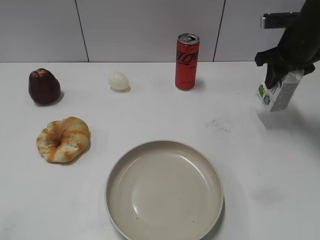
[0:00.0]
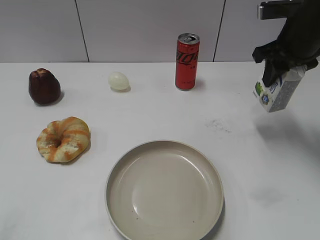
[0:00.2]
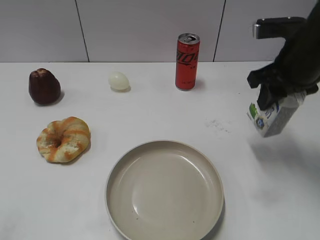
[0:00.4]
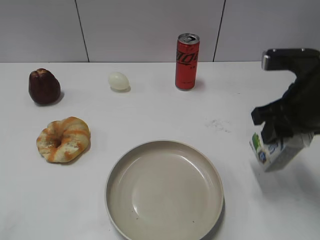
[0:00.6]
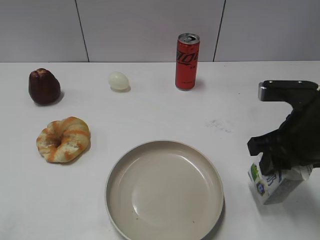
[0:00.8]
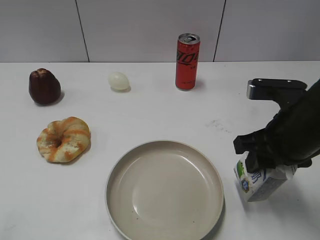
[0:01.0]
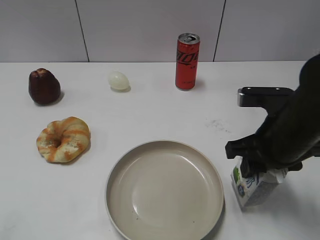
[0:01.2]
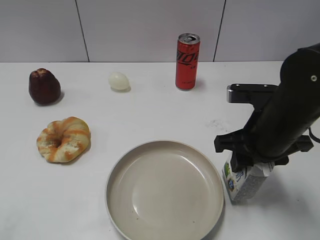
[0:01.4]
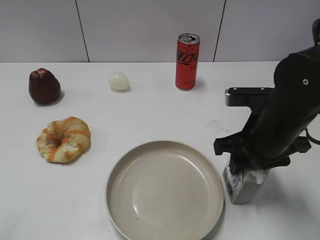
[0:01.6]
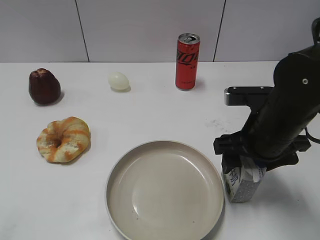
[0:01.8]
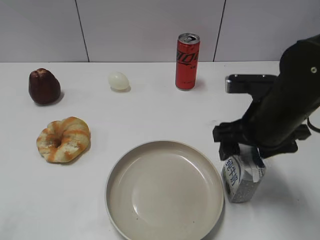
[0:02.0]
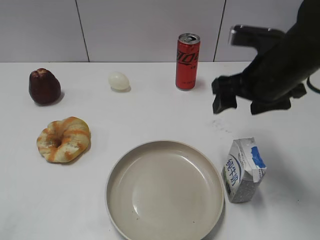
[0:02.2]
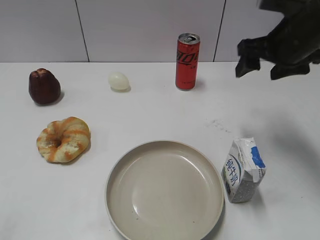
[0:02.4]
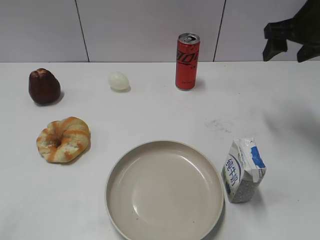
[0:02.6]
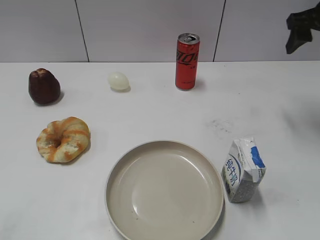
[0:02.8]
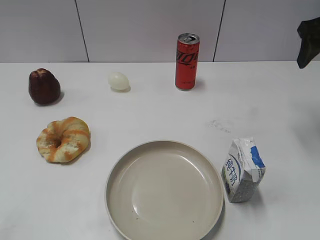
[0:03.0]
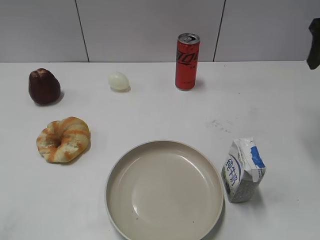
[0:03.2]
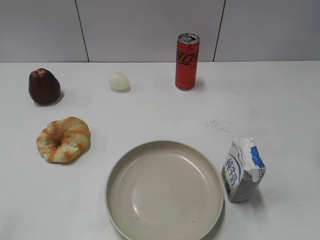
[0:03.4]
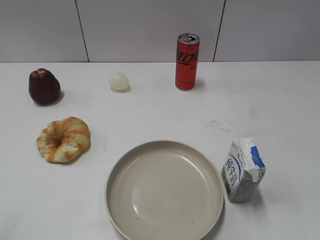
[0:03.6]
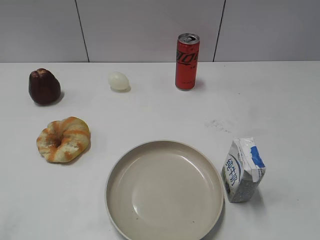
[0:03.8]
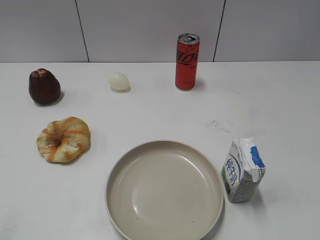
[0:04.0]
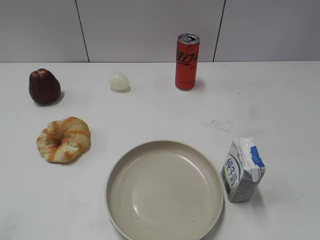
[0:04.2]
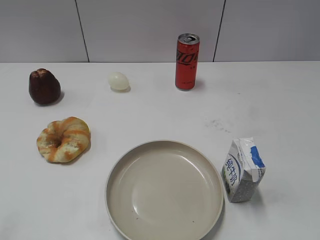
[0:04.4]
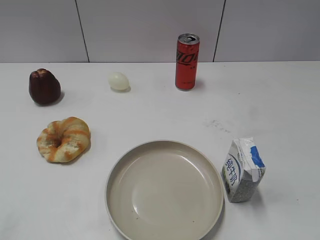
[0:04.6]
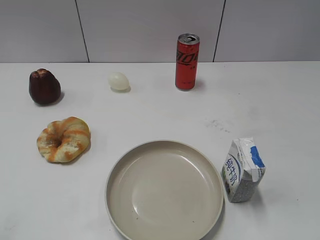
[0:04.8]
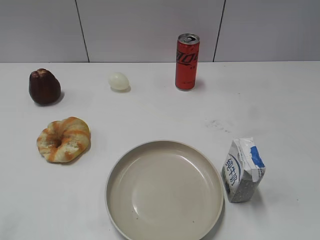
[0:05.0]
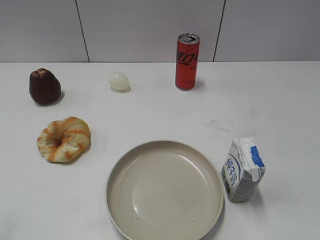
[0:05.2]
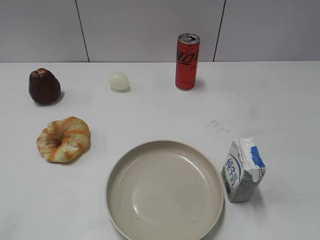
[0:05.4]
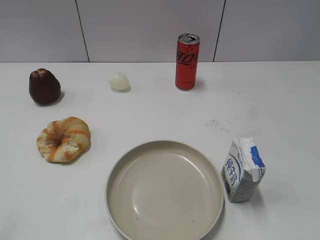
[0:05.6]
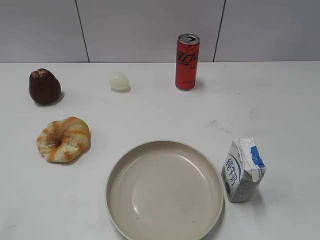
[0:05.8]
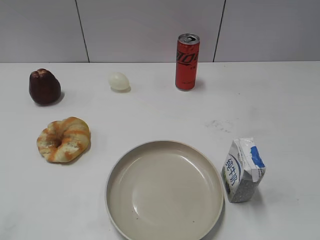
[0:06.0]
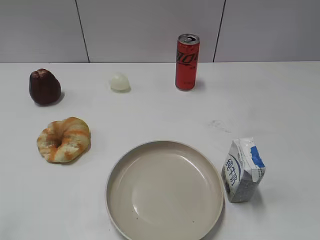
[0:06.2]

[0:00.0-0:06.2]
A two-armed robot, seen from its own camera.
Step, 0:00.0 to 0:02.0: Place the milk on the table with right gripper.
0:00.0 to 0:01.6: The right gripper heads backward and to the left, covering approximately 20 cm.
0:01.6 to 0:03.2: The right gripper is displaced upward, to the right and forward by roughly 20 cm, and opens.
0:03.2 to 0:04.6: The right gripper moves backward, about 30 cm.

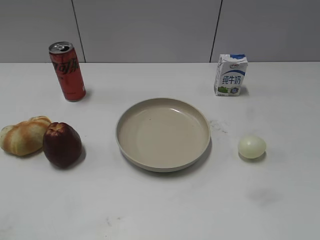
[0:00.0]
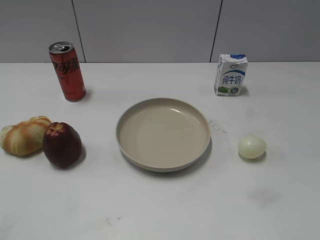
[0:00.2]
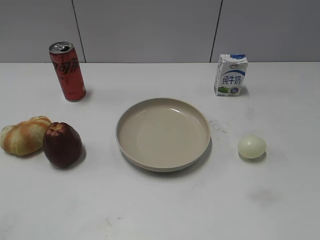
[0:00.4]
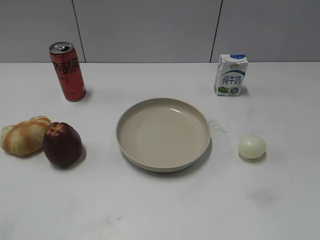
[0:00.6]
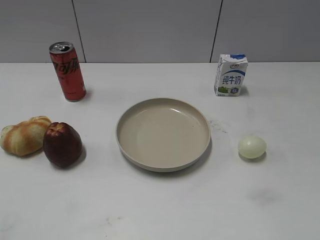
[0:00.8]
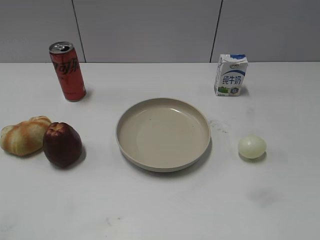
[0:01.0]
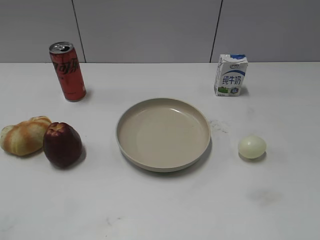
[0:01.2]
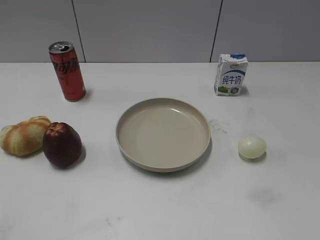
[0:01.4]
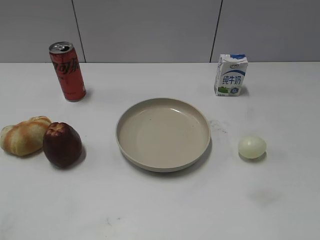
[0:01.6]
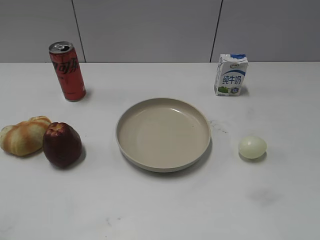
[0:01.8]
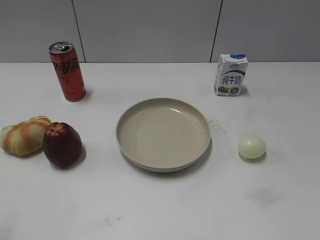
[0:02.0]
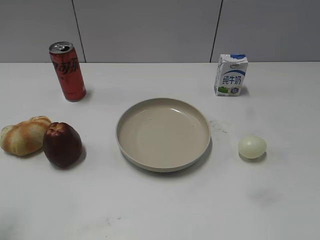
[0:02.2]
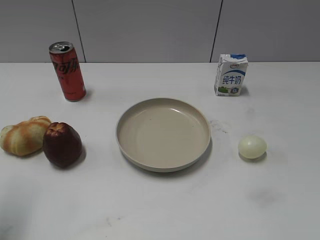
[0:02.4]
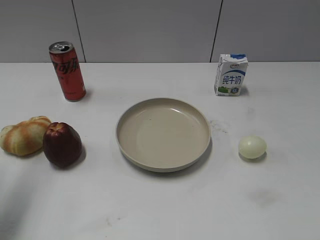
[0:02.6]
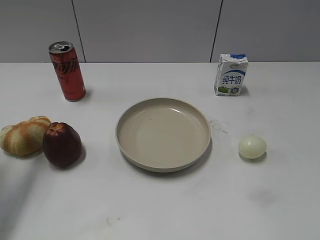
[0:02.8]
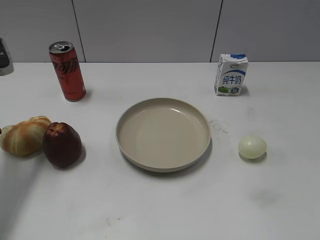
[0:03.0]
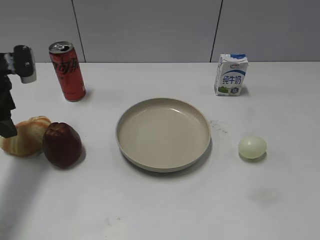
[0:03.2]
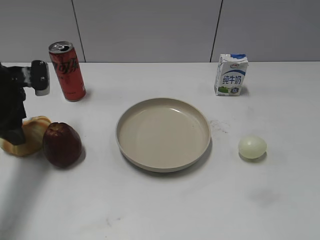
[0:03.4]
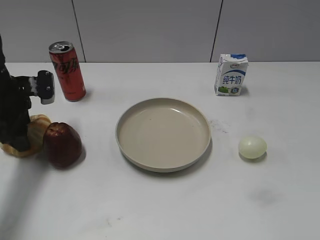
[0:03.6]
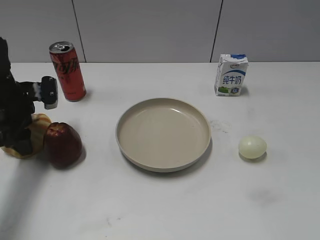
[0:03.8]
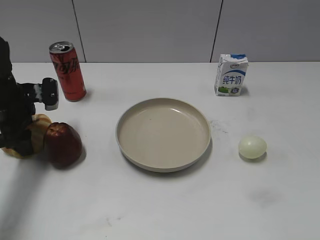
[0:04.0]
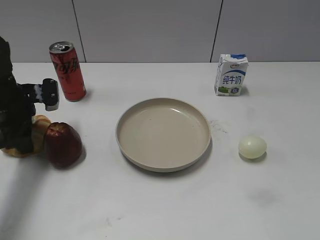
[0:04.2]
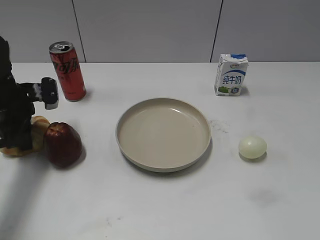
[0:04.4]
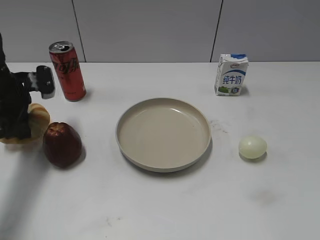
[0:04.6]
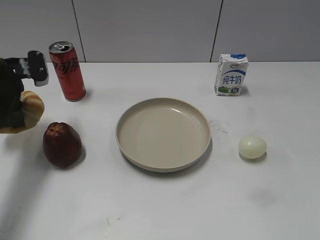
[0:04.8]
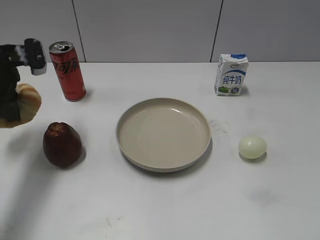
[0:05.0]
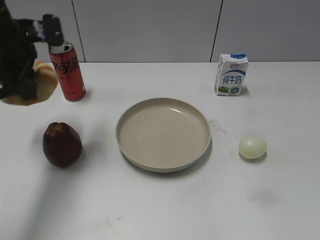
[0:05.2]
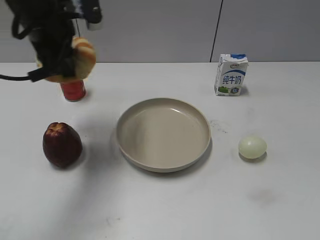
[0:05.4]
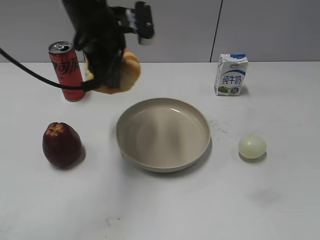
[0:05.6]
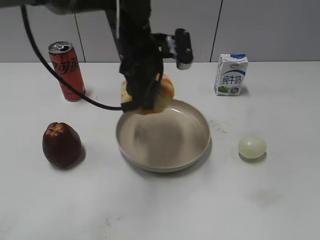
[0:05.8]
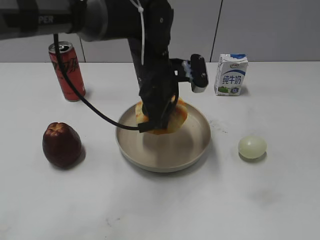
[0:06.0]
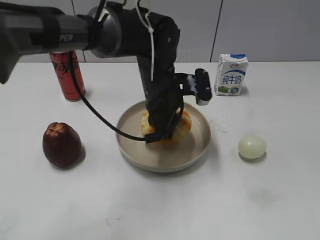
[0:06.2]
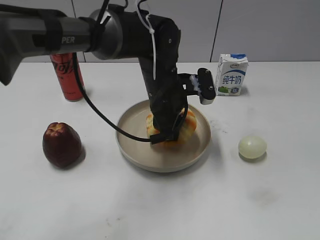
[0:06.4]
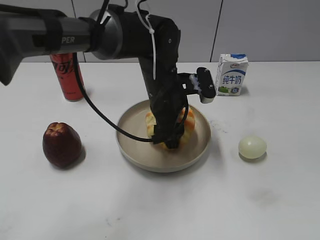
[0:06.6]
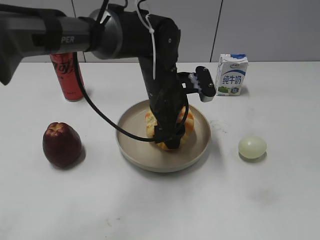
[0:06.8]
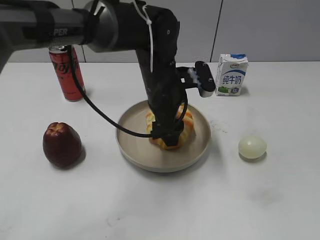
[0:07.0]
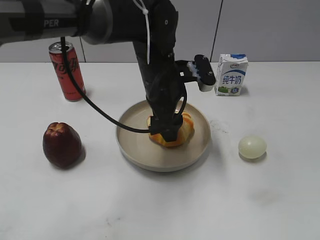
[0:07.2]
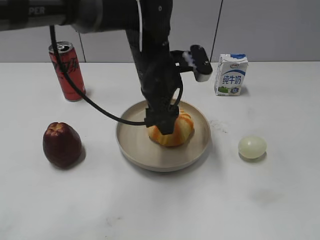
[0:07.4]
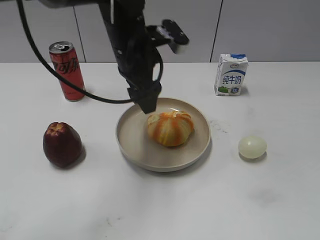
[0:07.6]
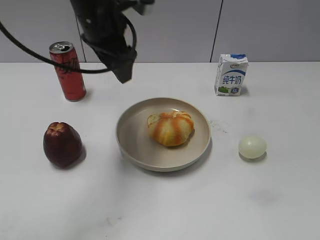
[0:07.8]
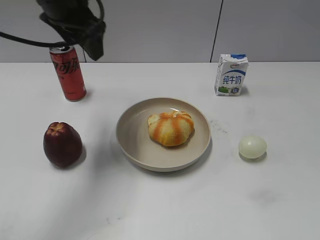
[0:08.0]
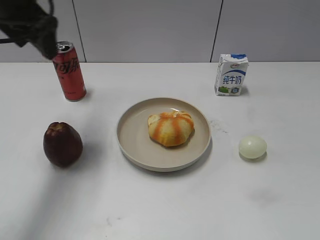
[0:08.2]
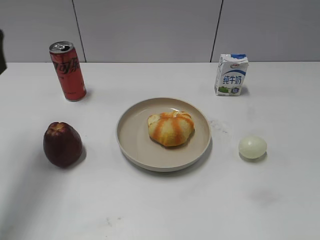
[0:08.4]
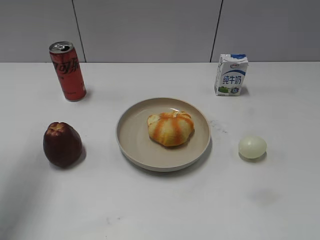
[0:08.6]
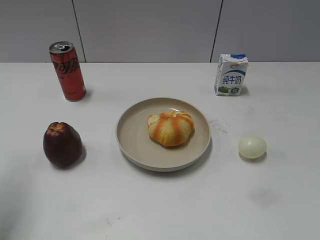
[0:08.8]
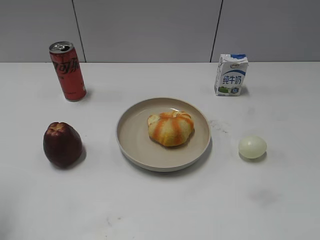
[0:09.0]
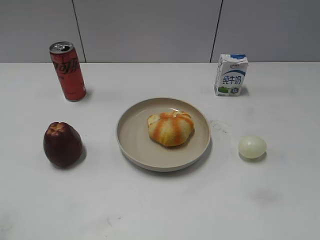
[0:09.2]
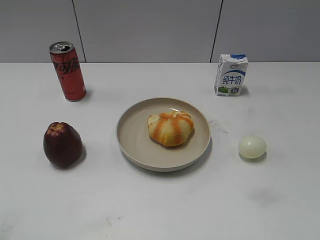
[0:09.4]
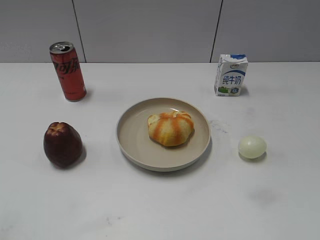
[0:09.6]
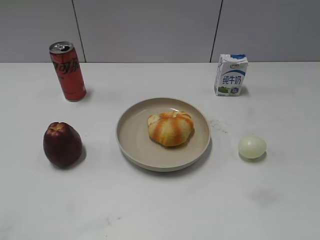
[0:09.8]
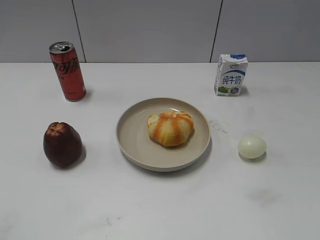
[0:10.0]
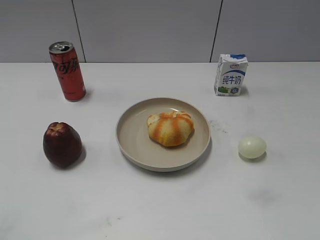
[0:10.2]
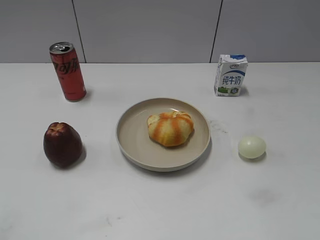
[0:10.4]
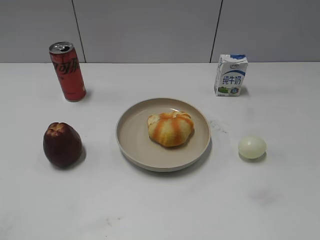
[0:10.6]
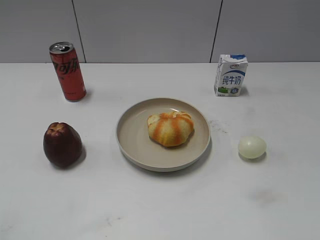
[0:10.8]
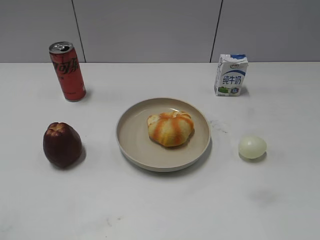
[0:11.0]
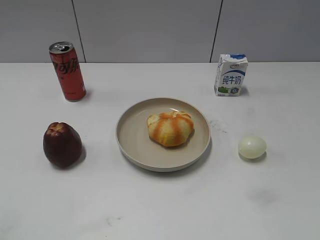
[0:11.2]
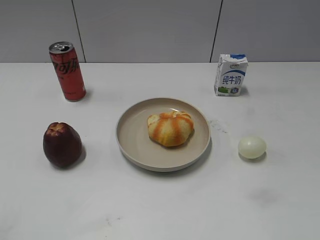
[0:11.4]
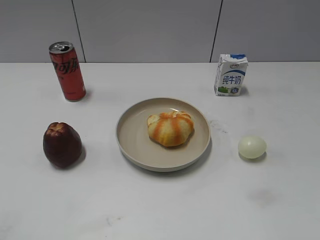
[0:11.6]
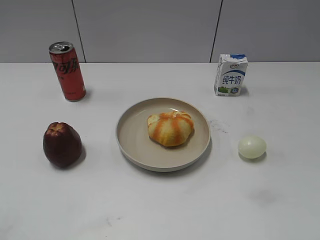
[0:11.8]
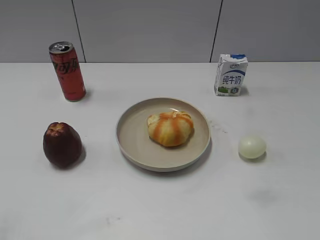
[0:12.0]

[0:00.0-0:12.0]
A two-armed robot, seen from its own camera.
Step, 0:01.6 to 0:04.4: Grasp the round bread with left gripper.
Step, 0:04.6 to 0:07.6: Place the round bread on the plate with left gripper.
0:01.6 to 0:03.0: The left gripper shifts about 30 cm forward.
0:03.0 to 0:04.4: The left gripper shifts approximately 10 cm downward and forward, and closes.
0:04.4 to 0:06.0: The left gripper moves to the right, approximately 25 cm.
0:06.0 to 0:07.6: The left gripper shifts by some 5 cm, and opens up.
0:07.6 to 0:09.0: The left gripper heads to the left and backward, covering about 35 cm.
0:10.4 to 0:12.0: The two grippers keep their place.
